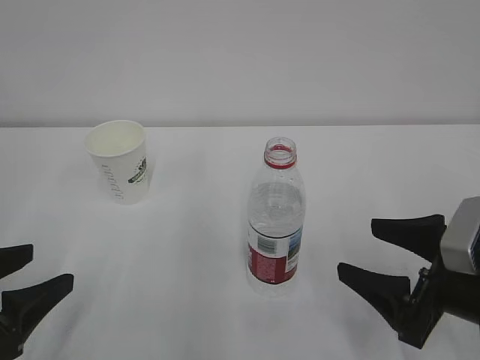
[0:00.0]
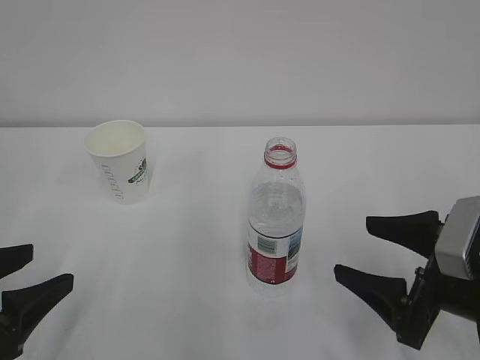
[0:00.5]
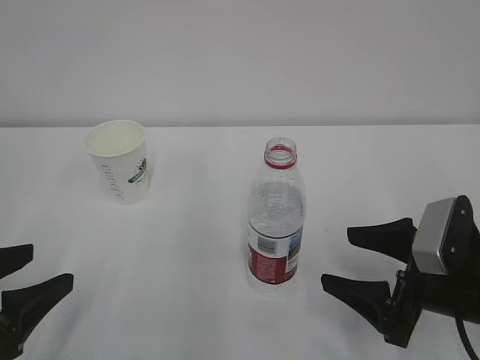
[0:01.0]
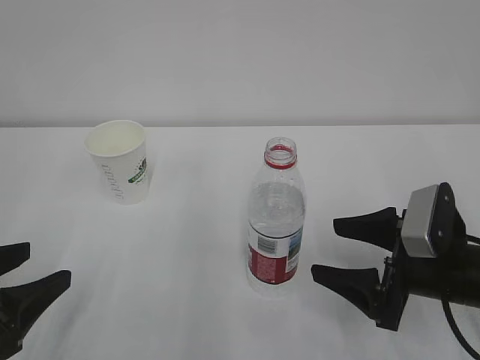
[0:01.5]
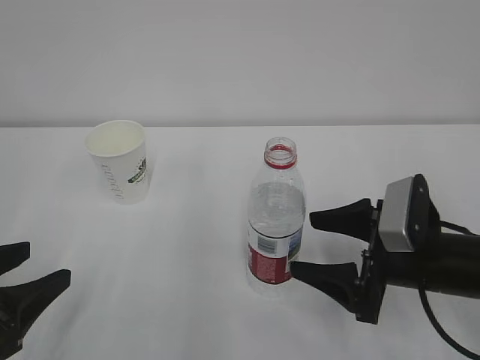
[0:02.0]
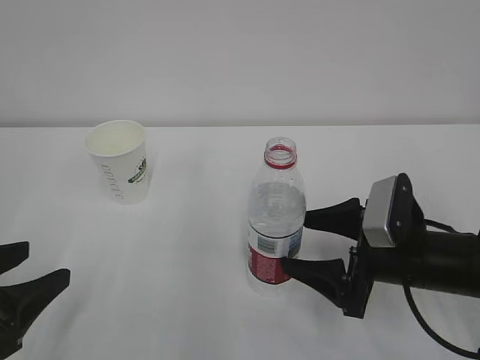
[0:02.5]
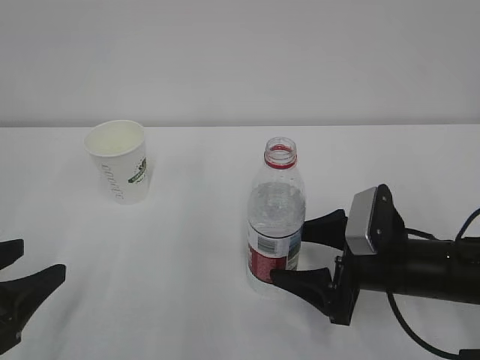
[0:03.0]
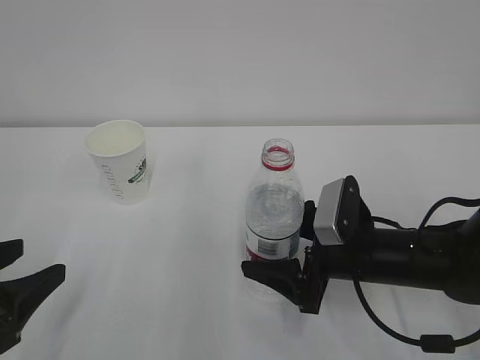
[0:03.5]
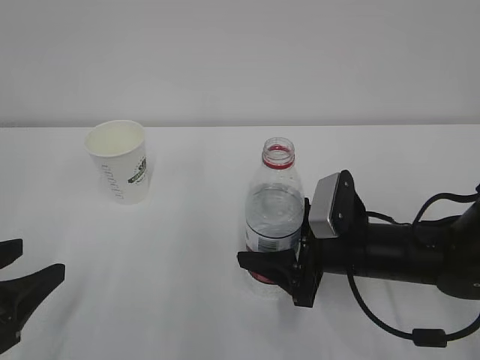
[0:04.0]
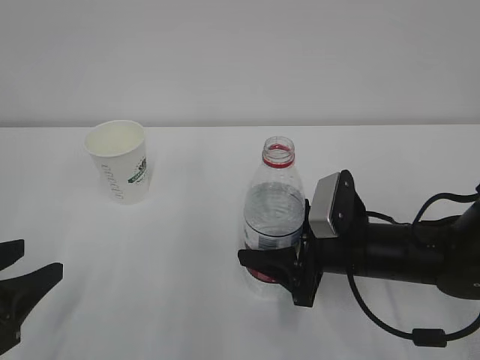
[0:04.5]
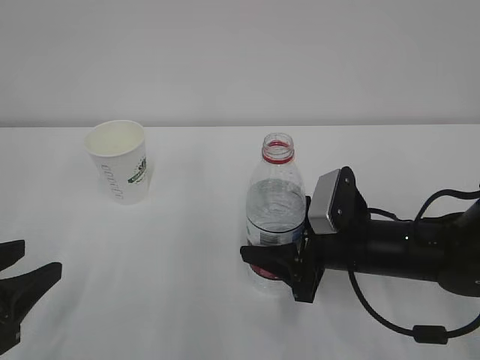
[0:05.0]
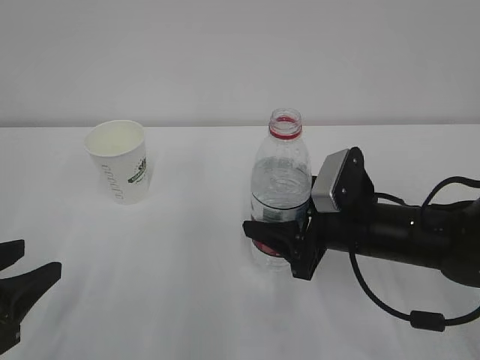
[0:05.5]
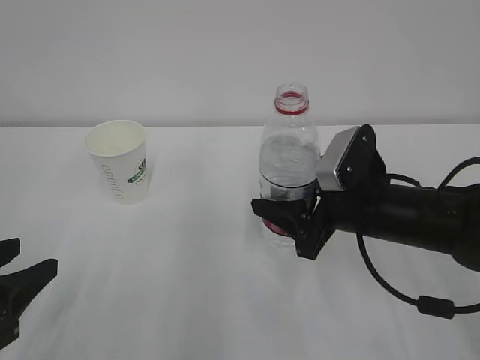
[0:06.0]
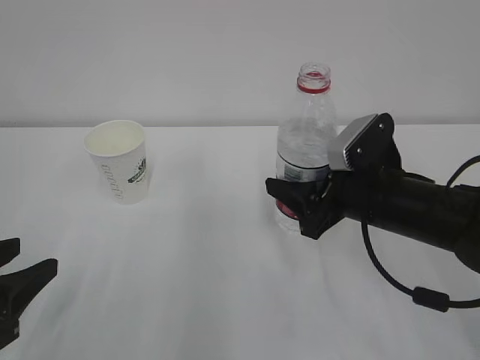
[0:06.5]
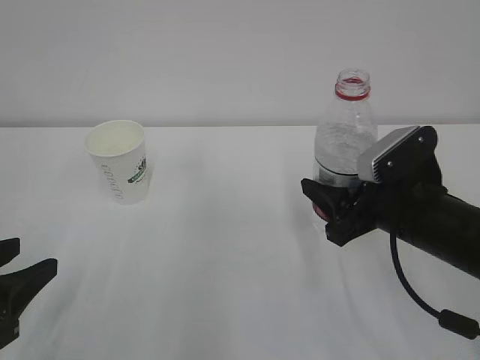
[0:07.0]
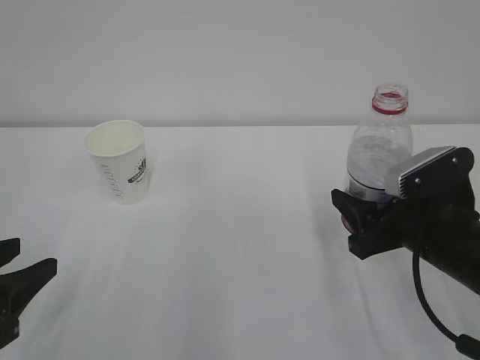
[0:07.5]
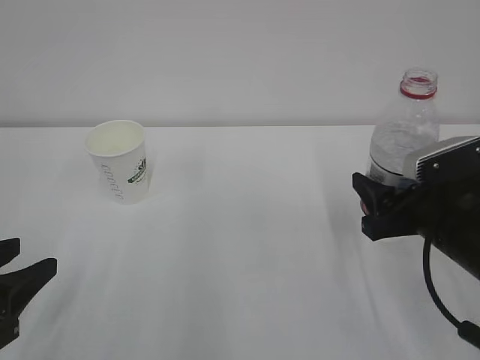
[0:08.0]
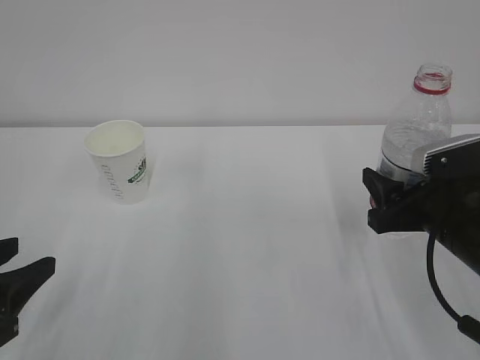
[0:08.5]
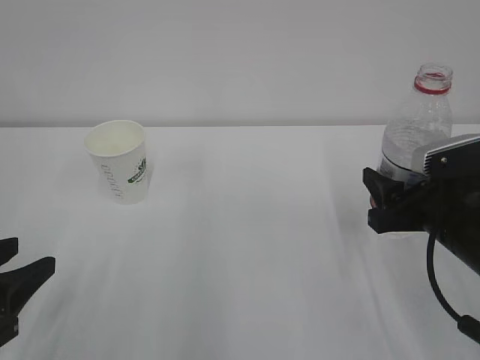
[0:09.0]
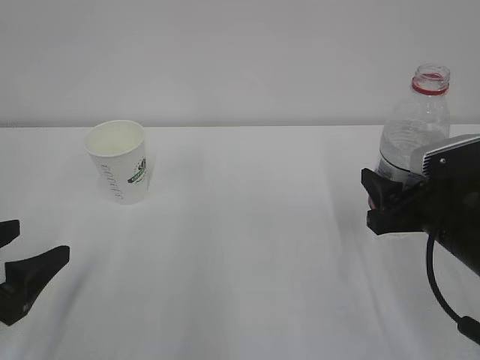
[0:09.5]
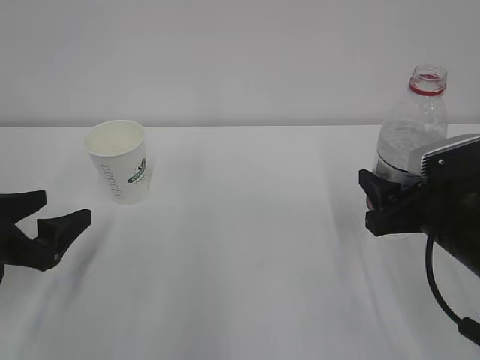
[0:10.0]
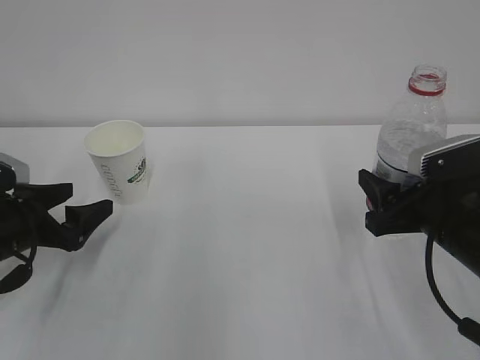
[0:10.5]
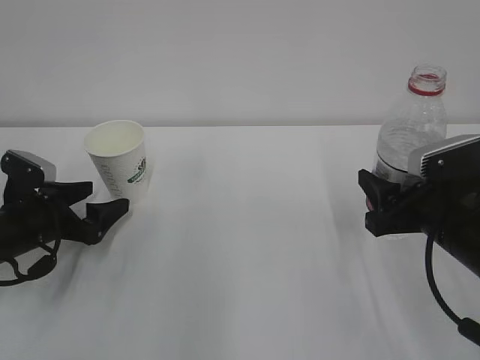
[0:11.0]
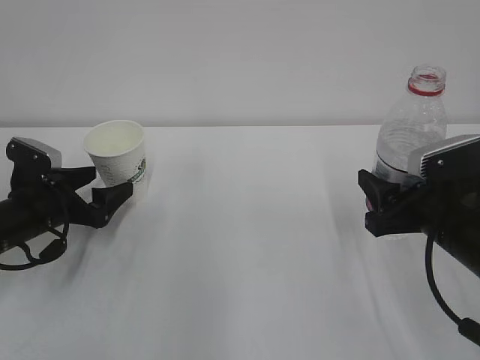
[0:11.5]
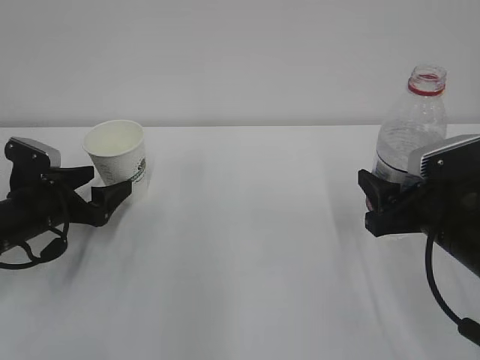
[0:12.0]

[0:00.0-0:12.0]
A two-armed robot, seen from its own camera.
0:00.0 to 0:02.0: The right gripper heads forward, covering approximately 5 cm.
0:02.0 to 0:04.0: The right gripper moves to the left, approximately 5 cm, and closes up.
0:04.0 to 0:06.0: The right gripper moves upward, approximately 5 cm.
0:06.0 to 0:08.0: The right gripper travels to the right by approximately 5 cm.
0:08.0 to 0:10.0: The left gripper shifts some 10 cm forward, and opens.
0:10.0 to 0:12.0: The left gripper is displaced forward by roughly 10 cm.

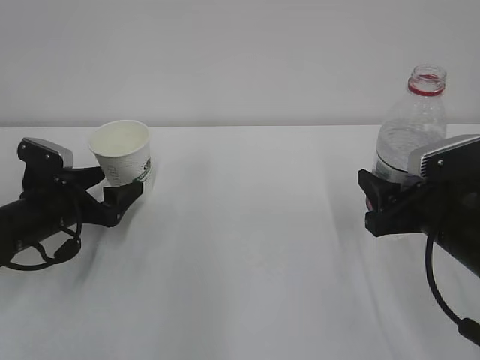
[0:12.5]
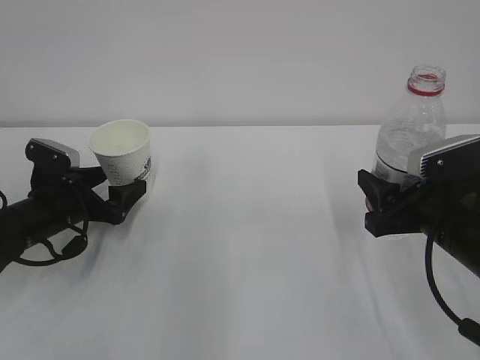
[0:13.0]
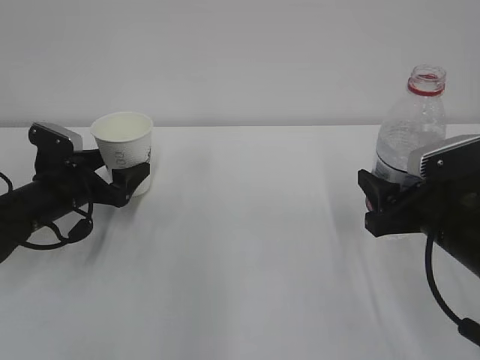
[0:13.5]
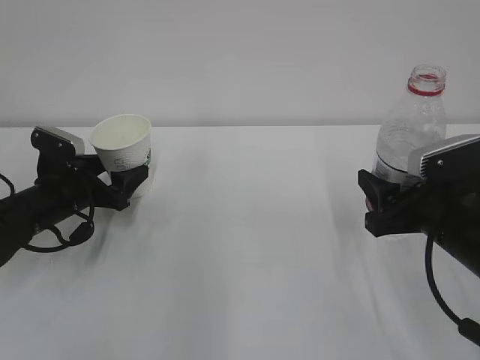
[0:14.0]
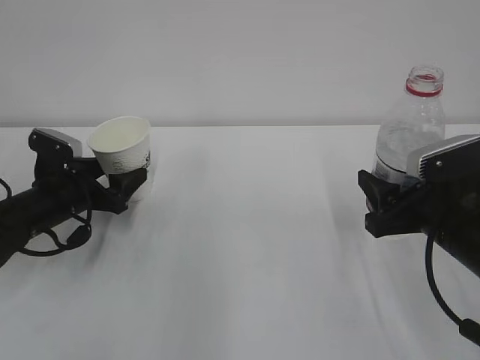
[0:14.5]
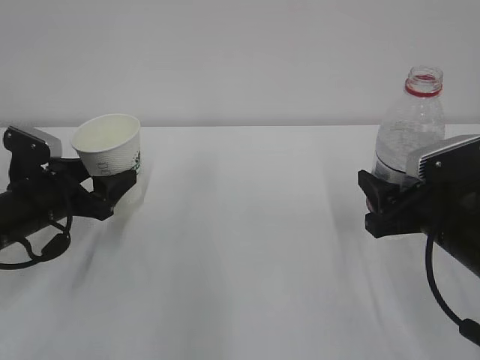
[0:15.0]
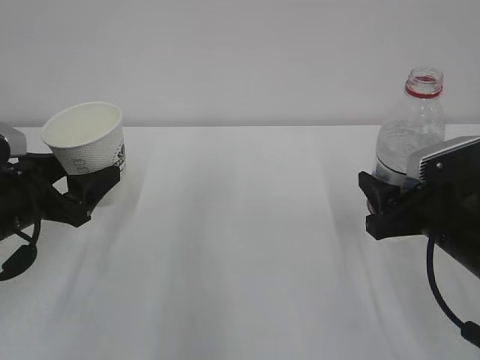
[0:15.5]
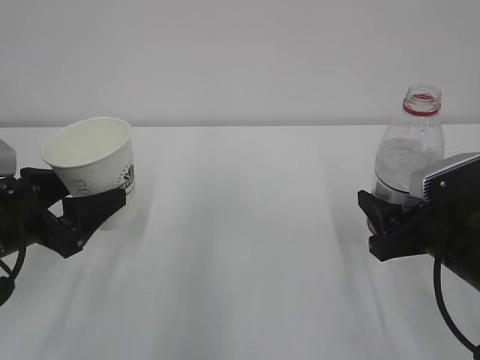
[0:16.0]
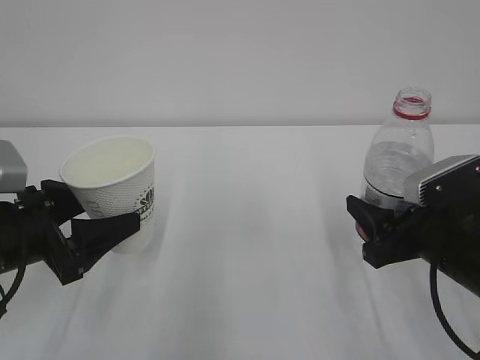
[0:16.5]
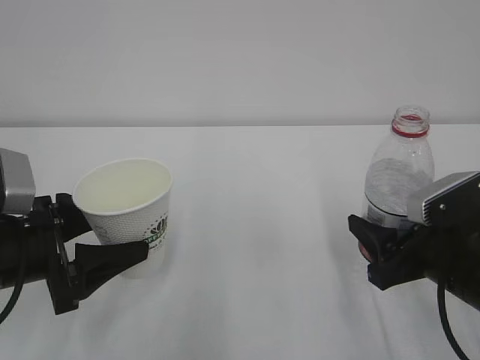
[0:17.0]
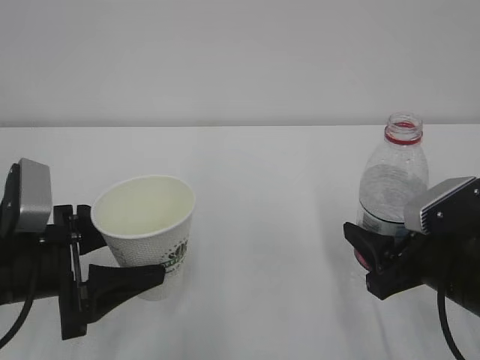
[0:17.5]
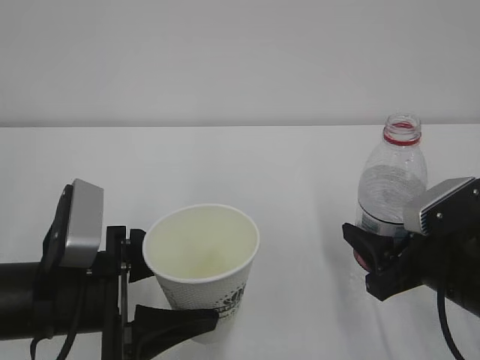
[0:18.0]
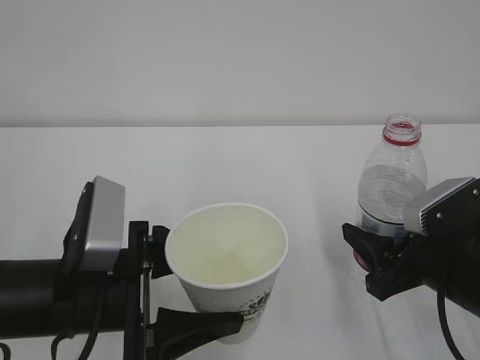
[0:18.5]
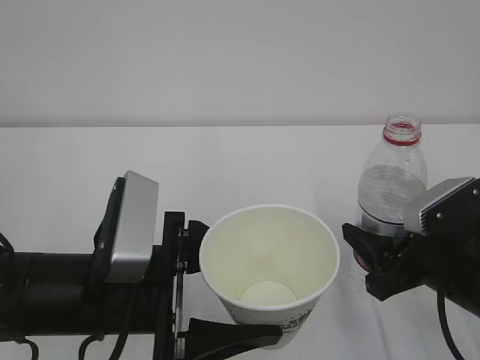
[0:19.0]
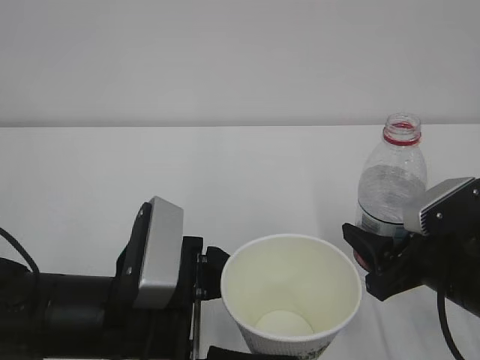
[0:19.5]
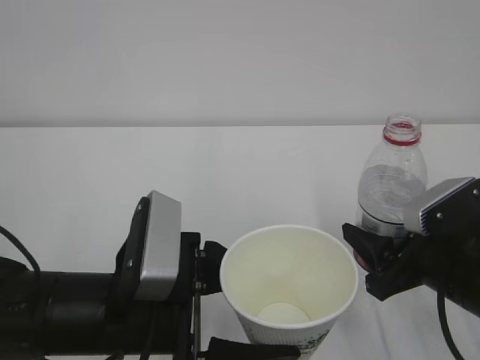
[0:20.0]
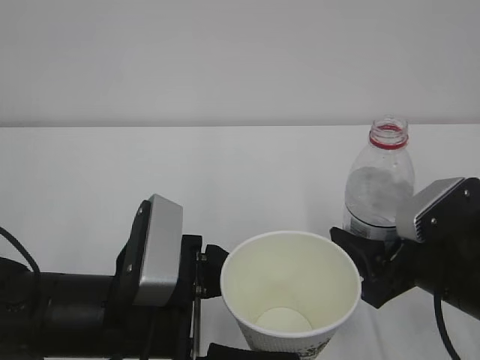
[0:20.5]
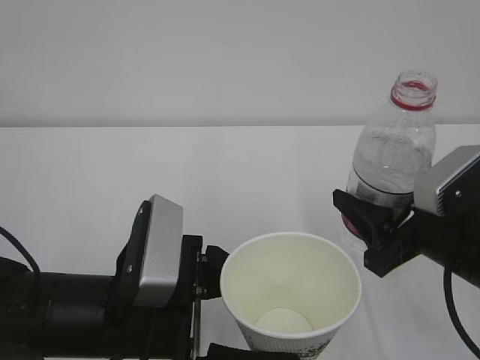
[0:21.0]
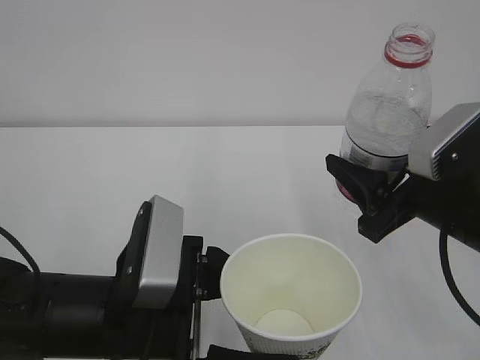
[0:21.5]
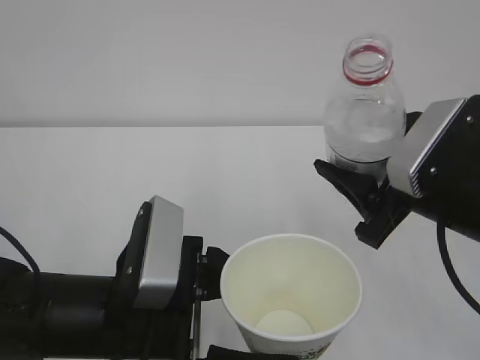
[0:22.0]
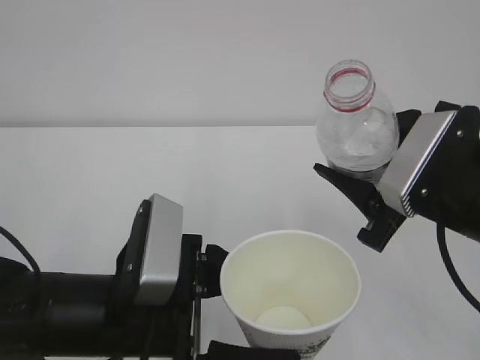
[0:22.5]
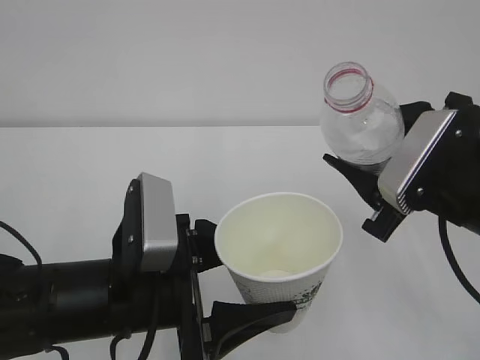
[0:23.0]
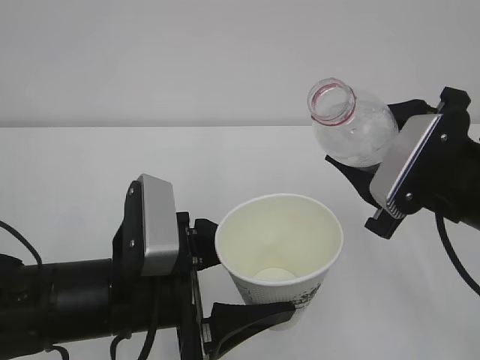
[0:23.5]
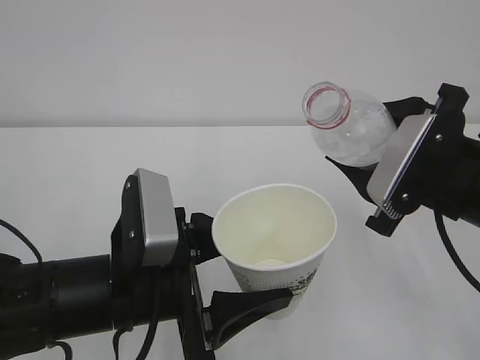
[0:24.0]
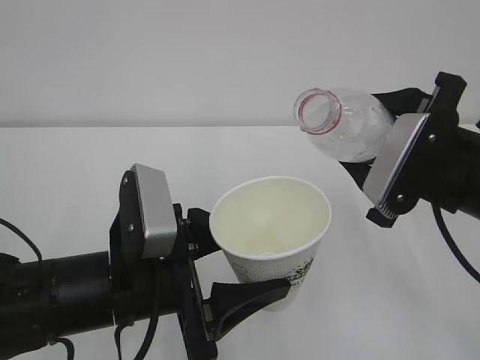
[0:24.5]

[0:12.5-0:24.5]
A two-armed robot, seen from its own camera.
0:12.5 to 0:14.5: The left gripper closes.
0:14.5 to 0:16.5: The left gripper shifts about 15 cm backward and upward.
0:16.5 to 0:18.5: The left gripper is displaced to the right and backward by approximately 10 cm.
0:18.5 to 0:20.5: The grippers move only a little.
0:20.5 to 0:22.5: The right gripper shifts approximately 10 cm upward.

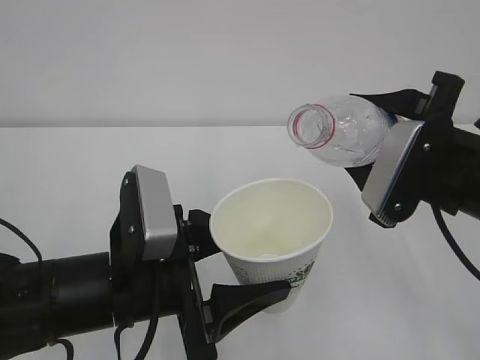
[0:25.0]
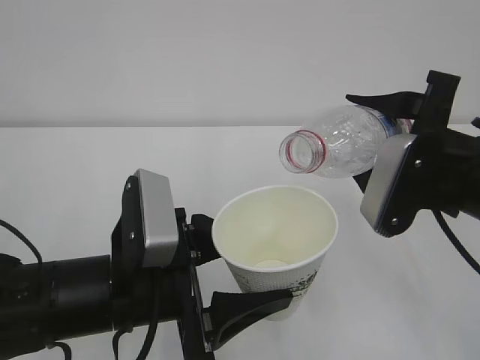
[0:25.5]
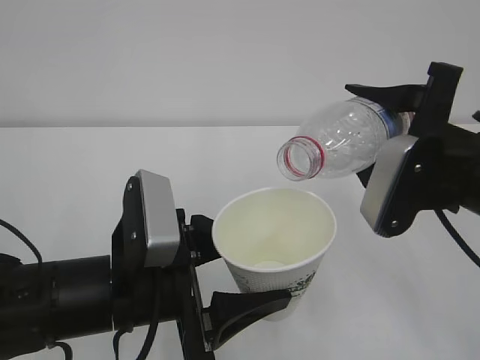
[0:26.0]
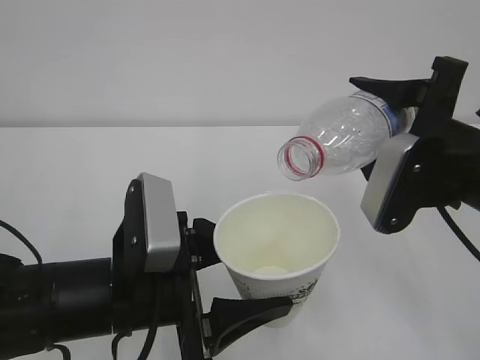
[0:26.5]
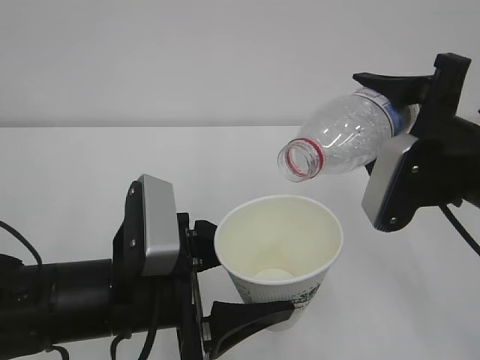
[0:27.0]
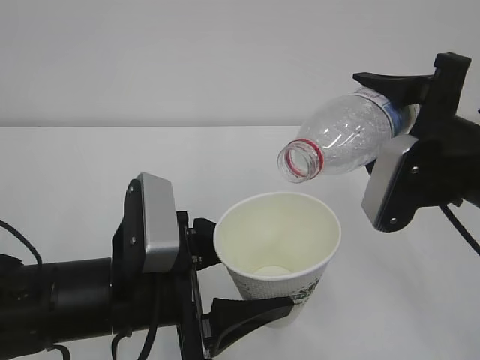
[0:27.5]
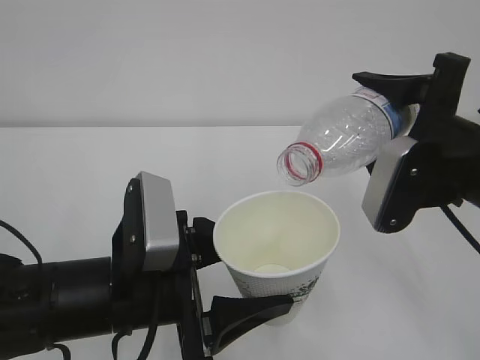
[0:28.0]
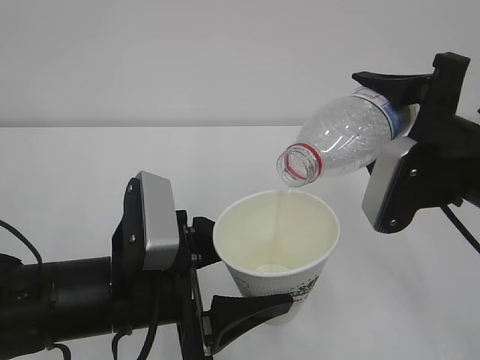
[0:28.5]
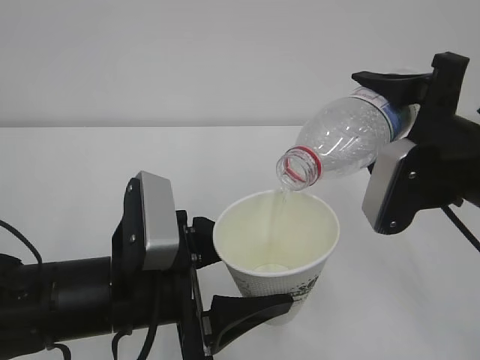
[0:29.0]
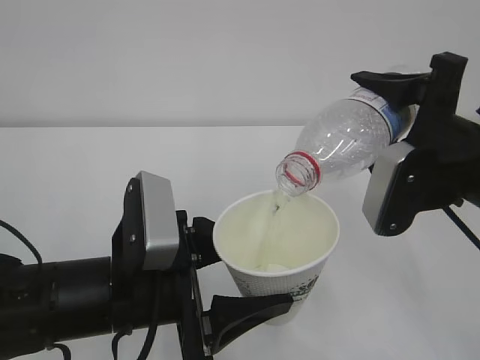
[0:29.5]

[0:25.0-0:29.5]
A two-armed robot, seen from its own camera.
0:25.0 to 0:27.0: There are only small adjustments of the grippers.
0:27.0 to 0:29.5: The grippers make only small movements.
